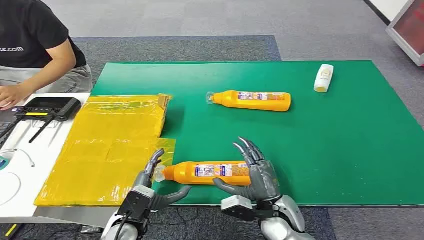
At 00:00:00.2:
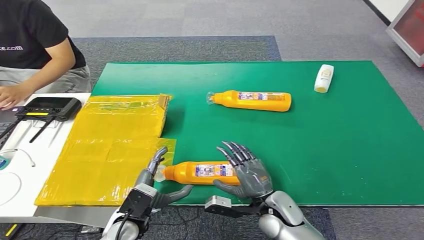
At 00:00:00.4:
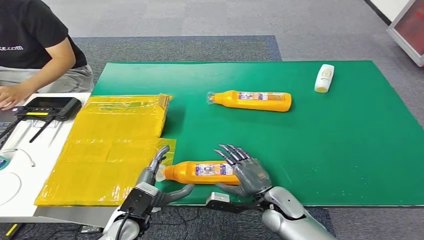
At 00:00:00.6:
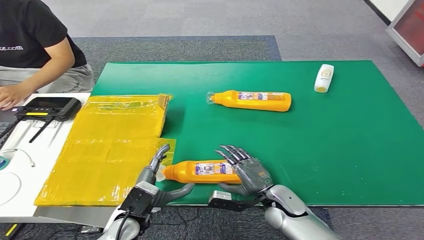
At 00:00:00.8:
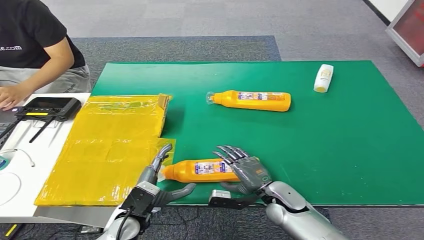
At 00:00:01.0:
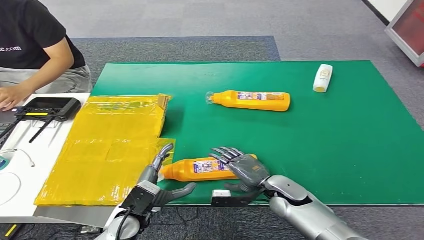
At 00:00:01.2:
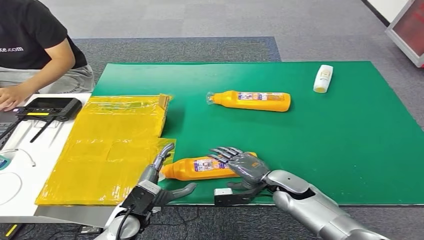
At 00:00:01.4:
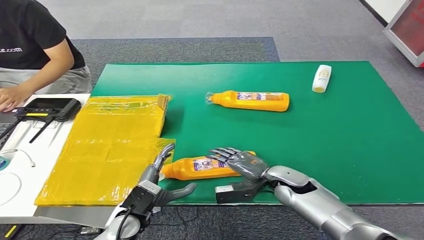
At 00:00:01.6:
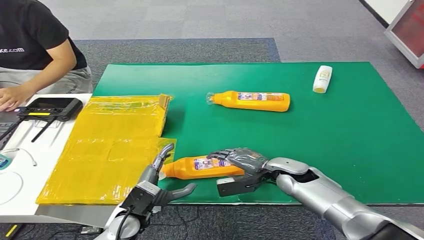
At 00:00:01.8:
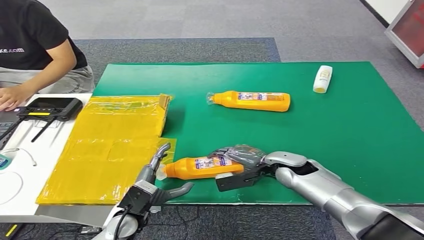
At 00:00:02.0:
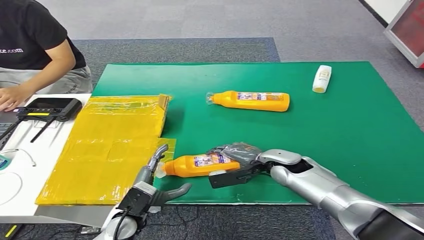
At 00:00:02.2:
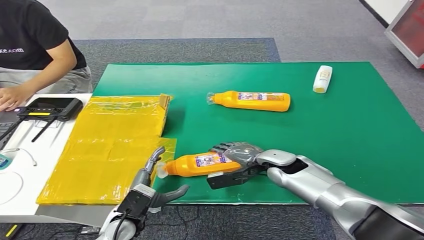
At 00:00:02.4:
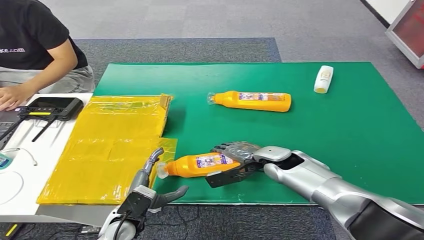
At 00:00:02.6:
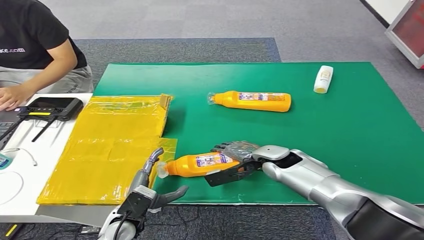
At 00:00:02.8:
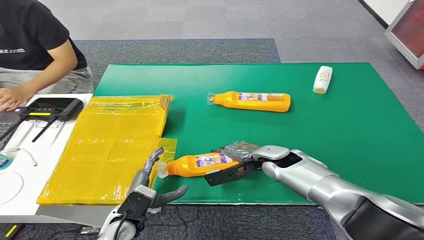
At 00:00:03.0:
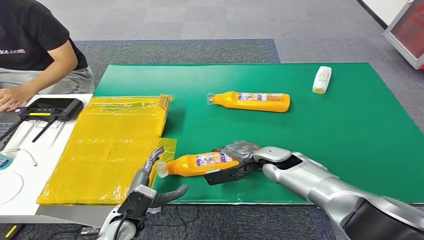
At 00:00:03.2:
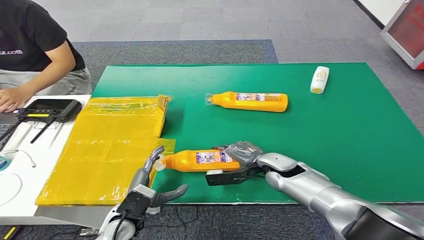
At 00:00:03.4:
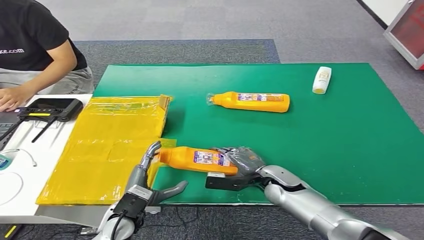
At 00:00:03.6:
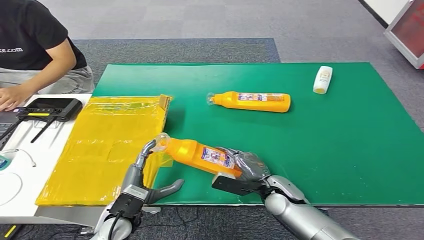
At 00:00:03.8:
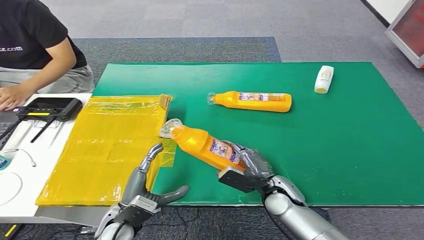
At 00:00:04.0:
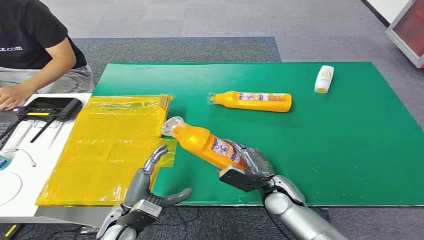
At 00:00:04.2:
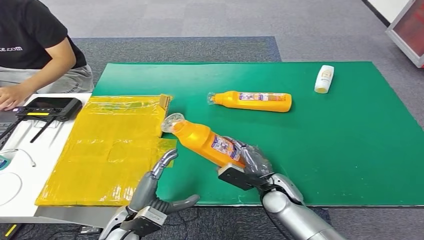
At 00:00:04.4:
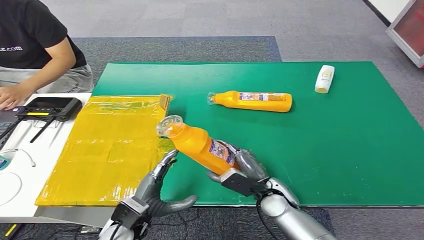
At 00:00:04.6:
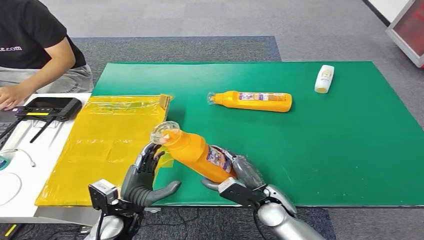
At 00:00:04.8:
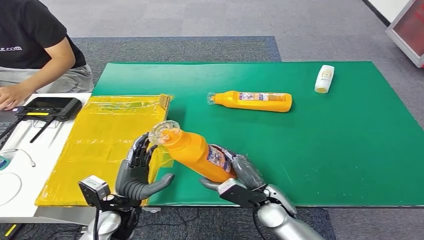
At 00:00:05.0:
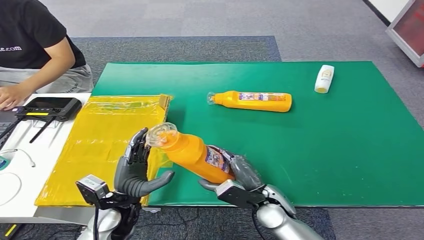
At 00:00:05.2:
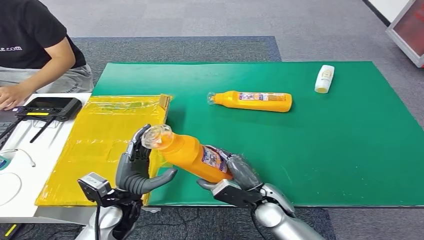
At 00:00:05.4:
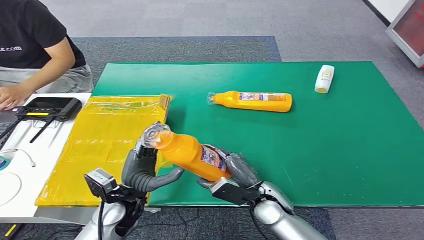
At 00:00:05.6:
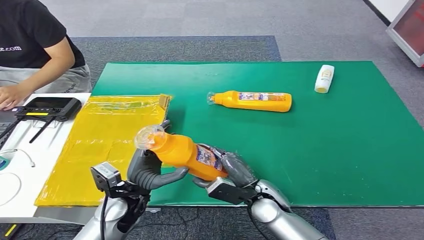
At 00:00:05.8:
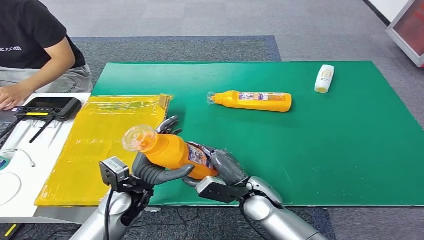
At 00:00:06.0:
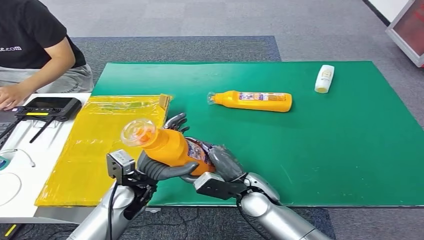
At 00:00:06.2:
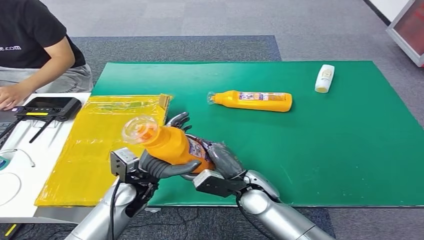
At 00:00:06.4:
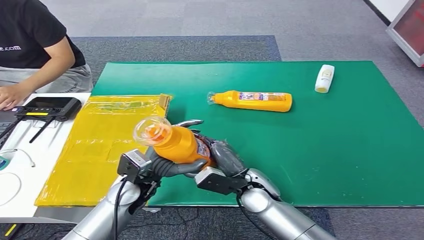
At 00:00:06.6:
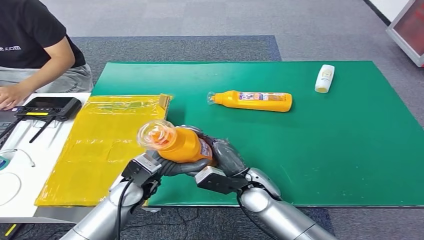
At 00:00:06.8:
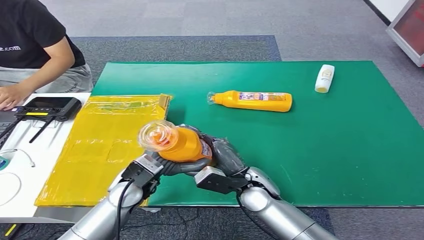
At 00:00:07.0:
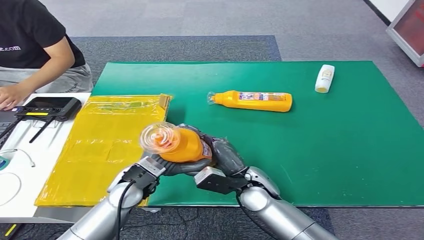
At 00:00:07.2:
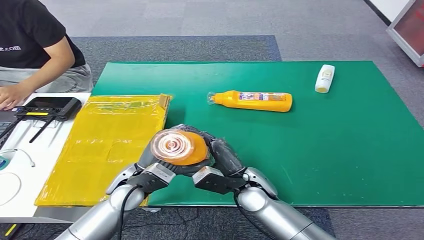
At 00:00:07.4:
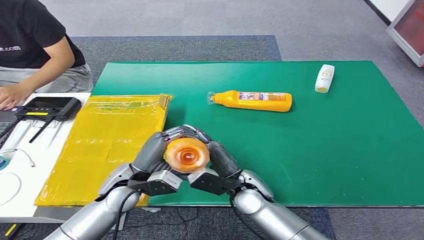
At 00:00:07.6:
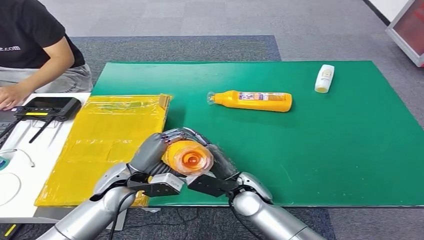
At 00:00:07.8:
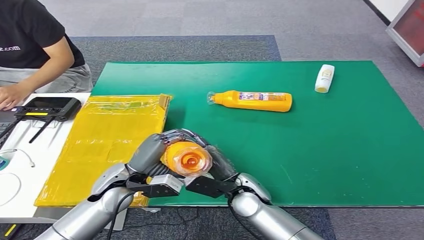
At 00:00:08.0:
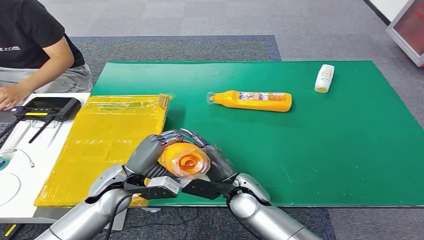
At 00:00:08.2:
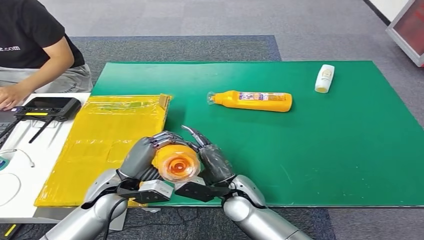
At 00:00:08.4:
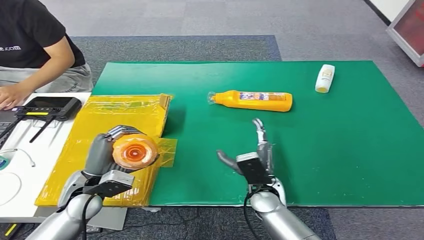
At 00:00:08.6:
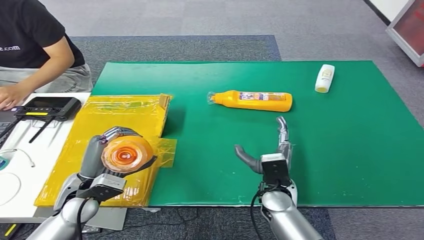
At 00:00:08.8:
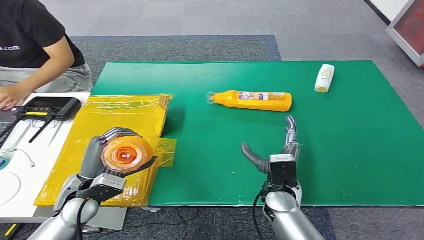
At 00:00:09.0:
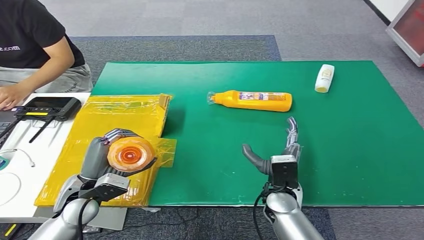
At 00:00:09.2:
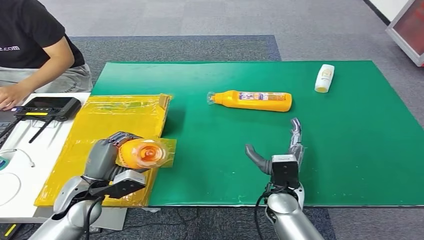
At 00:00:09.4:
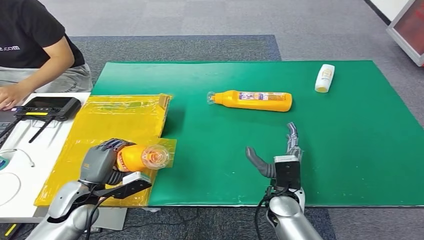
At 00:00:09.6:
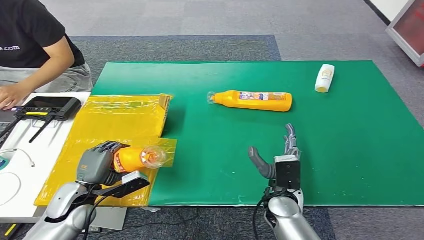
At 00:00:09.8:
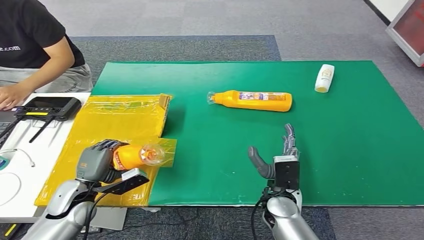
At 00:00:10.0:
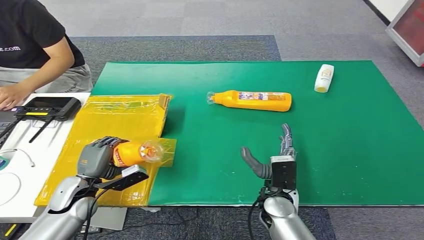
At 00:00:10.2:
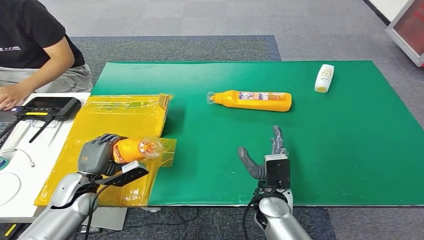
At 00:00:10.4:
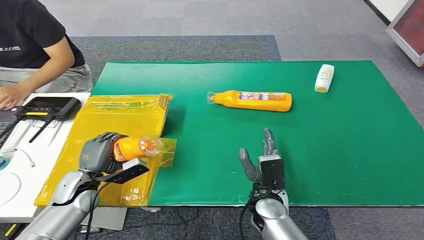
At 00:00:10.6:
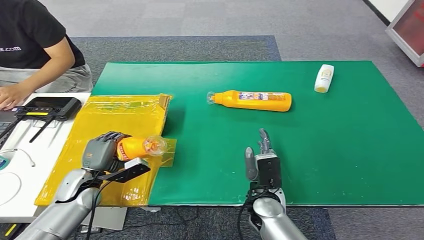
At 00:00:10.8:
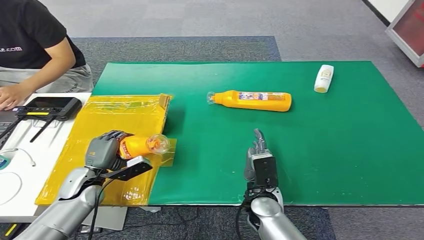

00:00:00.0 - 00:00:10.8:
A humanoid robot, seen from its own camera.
Step, 00:00:00.0 - 00:00:05.0: Pick up the bottle from the table.
00:00:04.6 - 00:00:06.2: The left hand moves forward and upward, roughly 10 cm. Meanwhile the right hand shifts by some 5 cm.
00:00:07.8 - 00:00:09.2: The right hand is displaced to the right by approximately 10 cm; the left hand heads to the left, covering approximately 5 cm.
00:00:09.2 - 00:00:10.8: The left hand is displaced downward and forward by approximately 10 cm.

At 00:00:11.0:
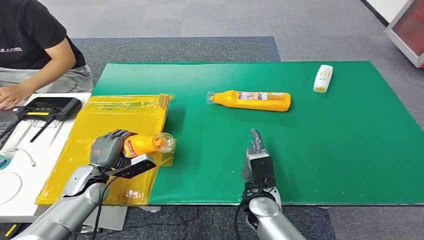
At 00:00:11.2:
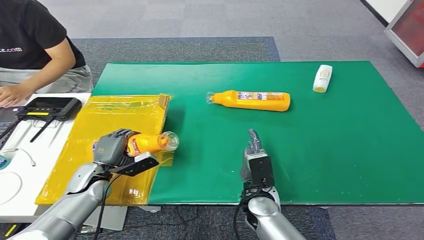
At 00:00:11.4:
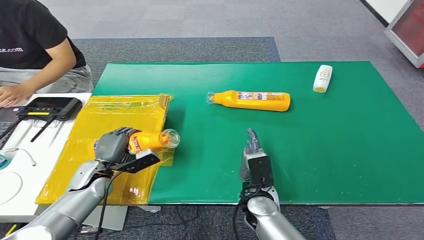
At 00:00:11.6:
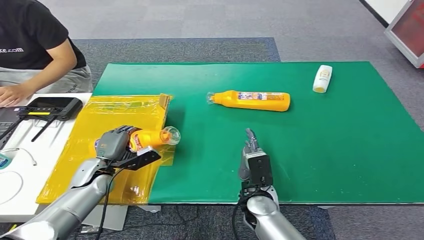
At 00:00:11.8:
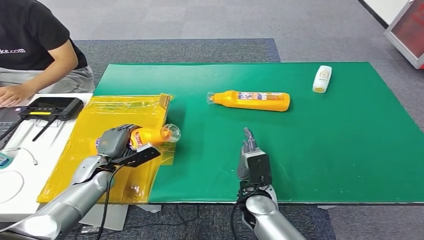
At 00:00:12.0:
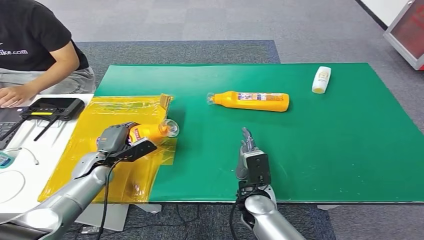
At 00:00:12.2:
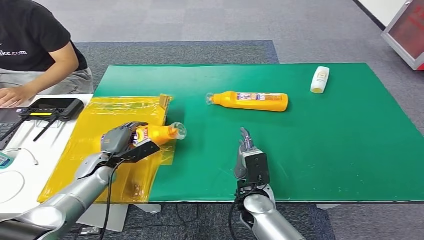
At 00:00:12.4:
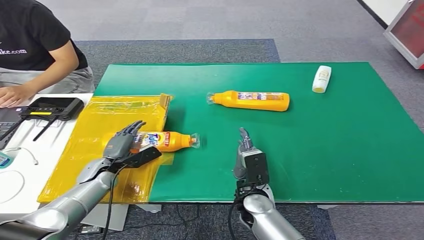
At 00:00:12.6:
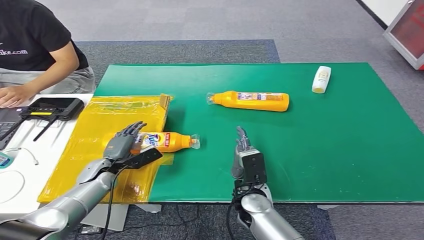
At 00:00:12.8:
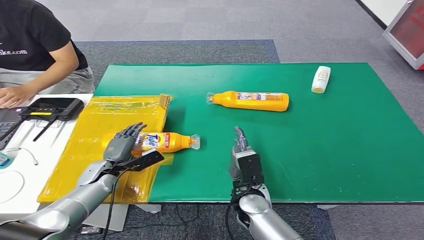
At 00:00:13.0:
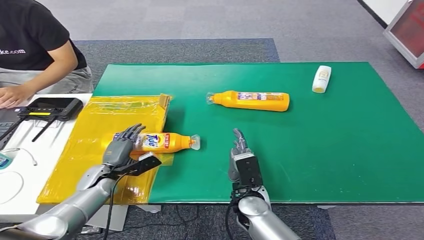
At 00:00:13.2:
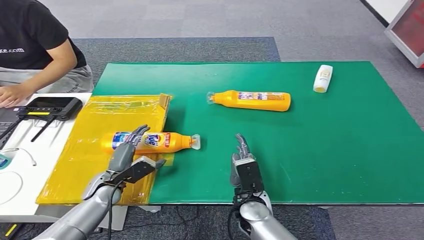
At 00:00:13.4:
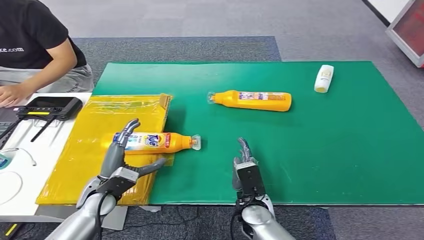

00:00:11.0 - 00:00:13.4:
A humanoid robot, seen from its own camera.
Step, 00:00:11.0 - 00:00:13.2: Turn the bottle to the front side.
00:00:11.0 - 00:00:12.2: The hands move only a little.
